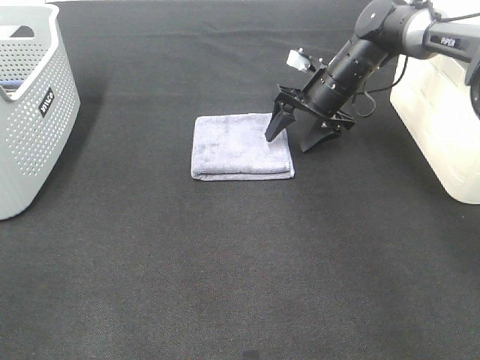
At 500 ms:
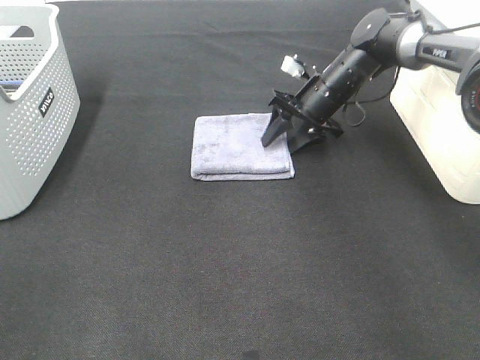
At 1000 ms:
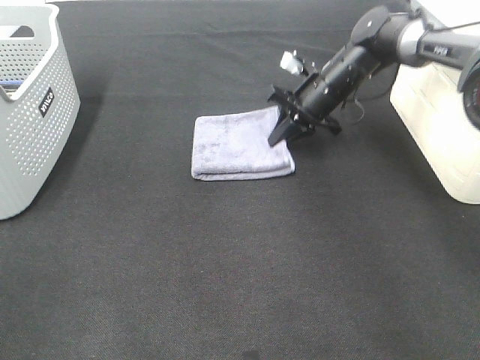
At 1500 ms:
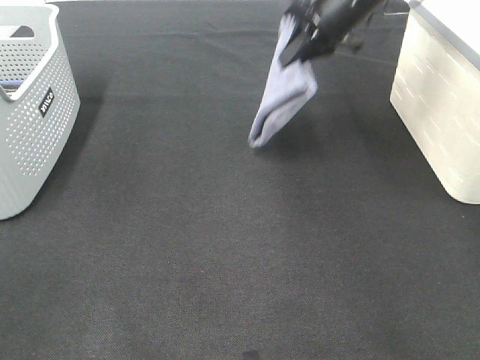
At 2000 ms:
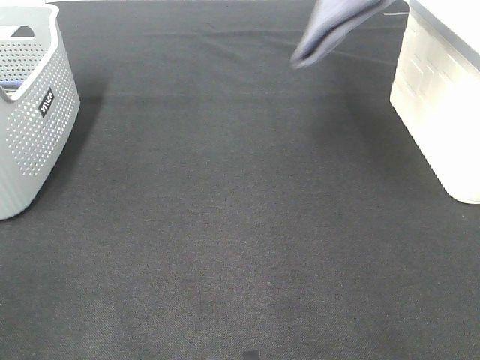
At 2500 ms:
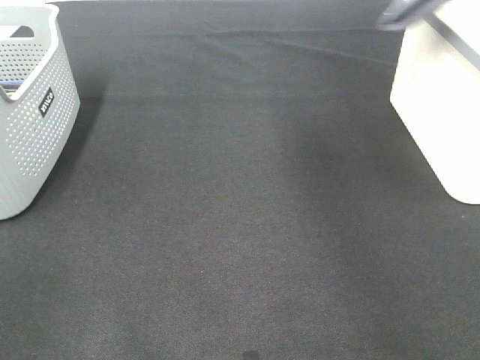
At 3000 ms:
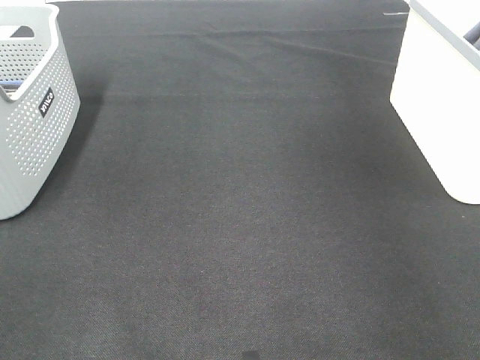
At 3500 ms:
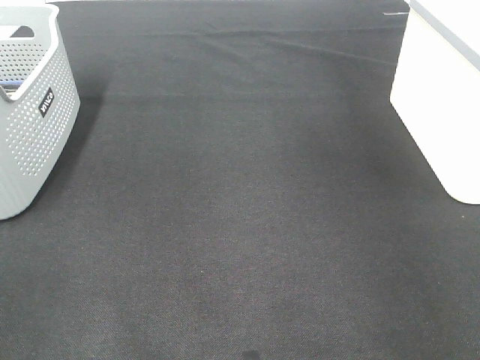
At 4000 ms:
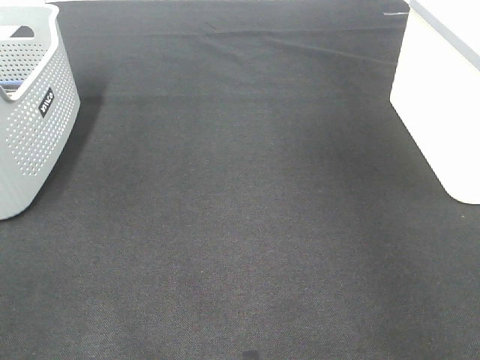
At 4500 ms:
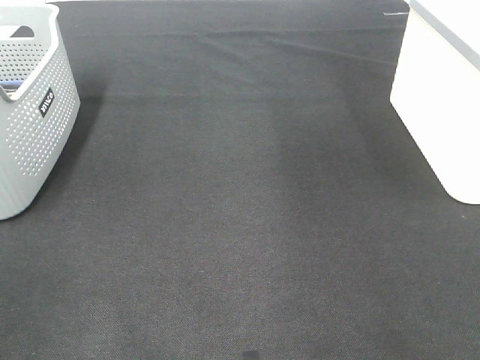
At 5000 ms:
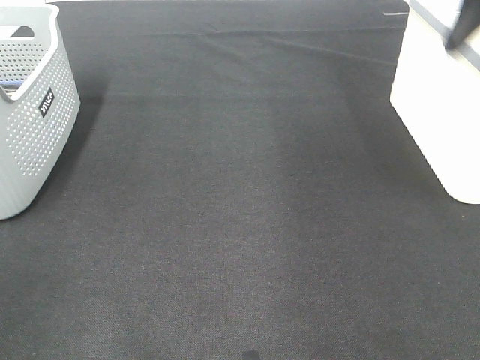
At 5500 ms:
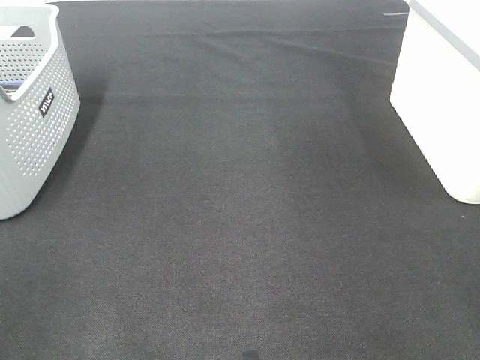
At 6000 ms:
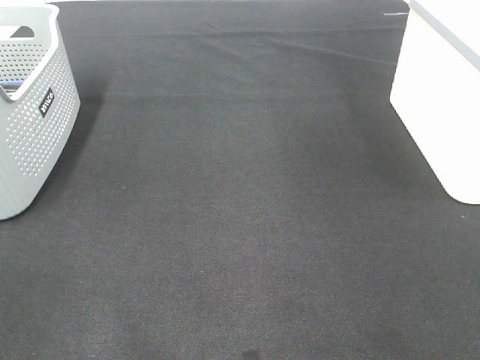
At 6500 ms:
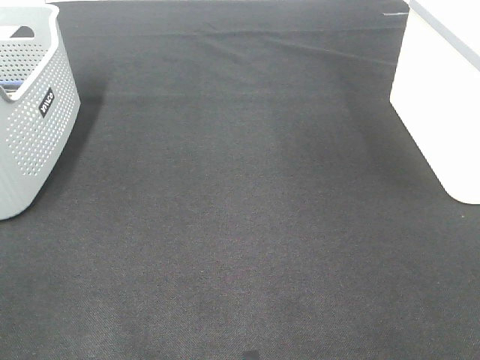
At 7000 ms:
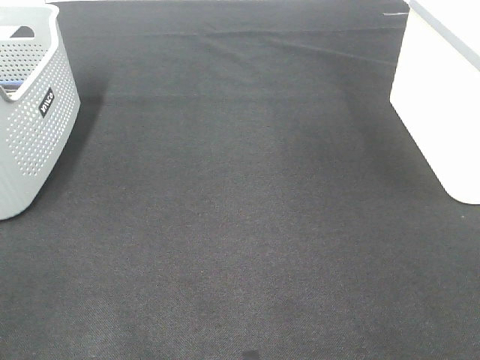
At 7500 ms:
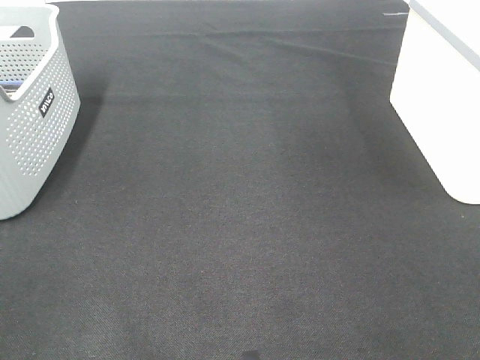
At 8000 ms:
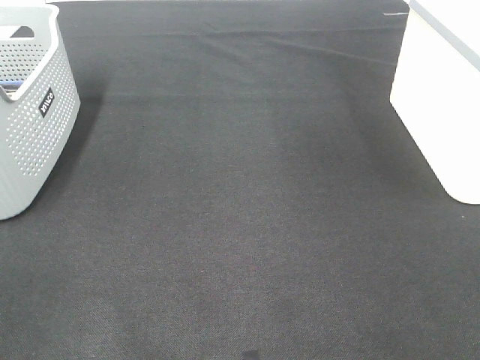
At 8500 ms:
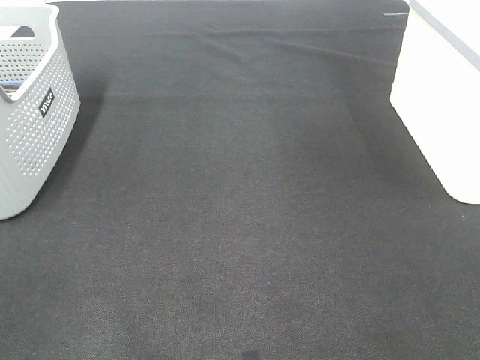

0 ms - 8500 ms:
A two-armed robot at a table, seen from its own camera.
Step, 1000 ms - 3500 ms: Right hand: place the grey towel in right basket.
0 ms - 2000 ms: The right gripper moves upward, roughly 30 cm, and closes its fingers.
2000 ms - 4000 ms: The right gripper moves to the right, roughly 15 cm, and opens up.

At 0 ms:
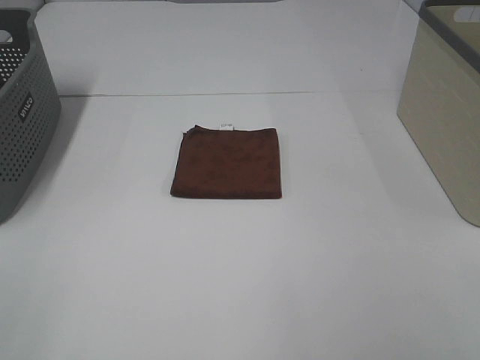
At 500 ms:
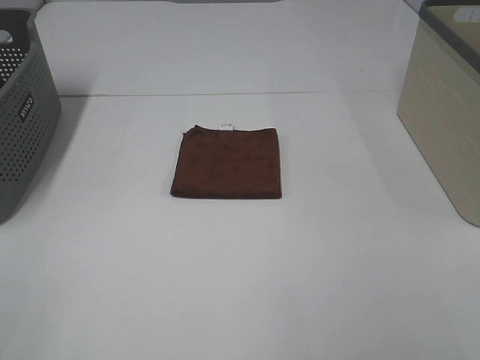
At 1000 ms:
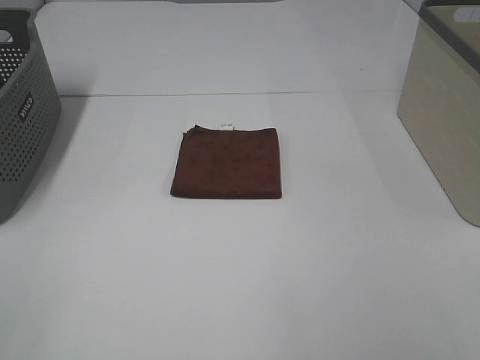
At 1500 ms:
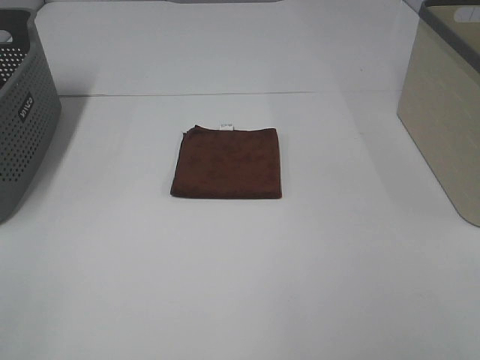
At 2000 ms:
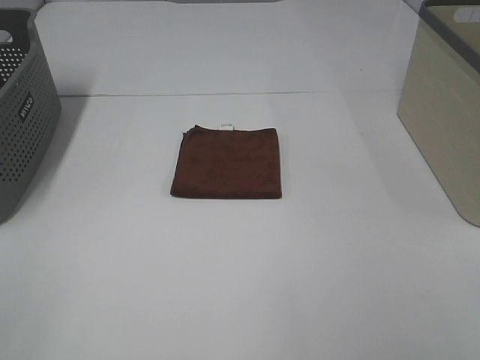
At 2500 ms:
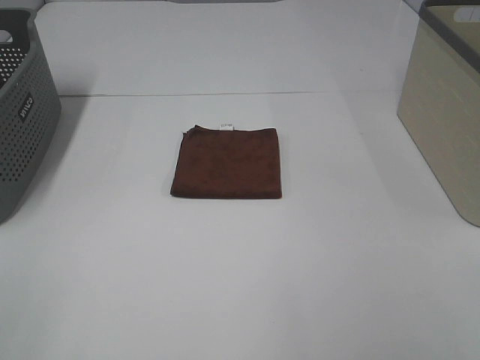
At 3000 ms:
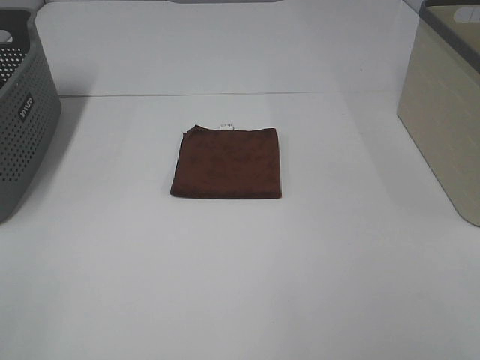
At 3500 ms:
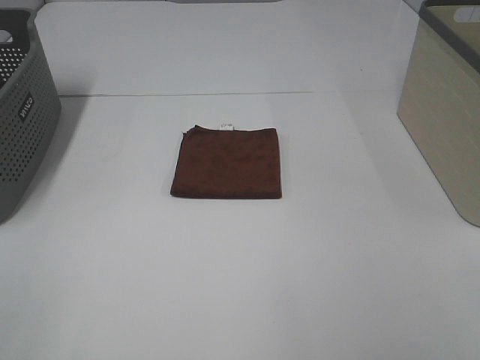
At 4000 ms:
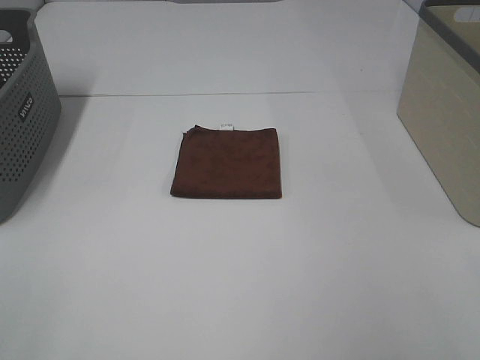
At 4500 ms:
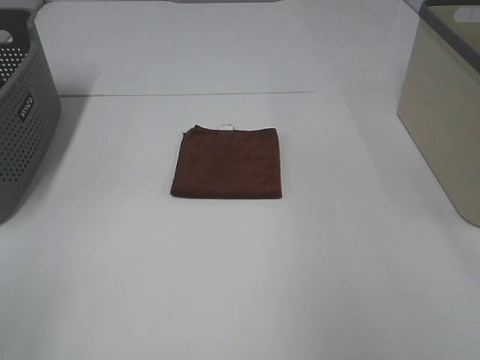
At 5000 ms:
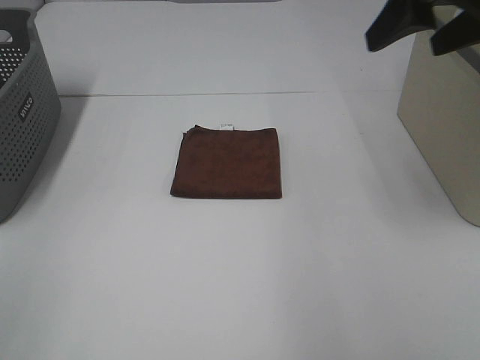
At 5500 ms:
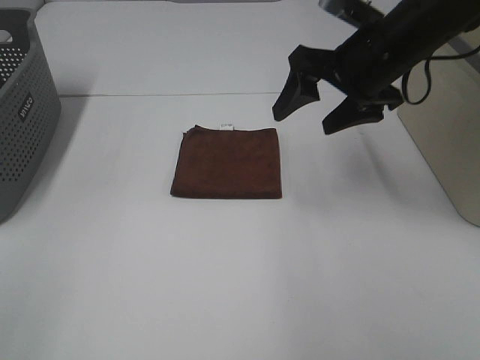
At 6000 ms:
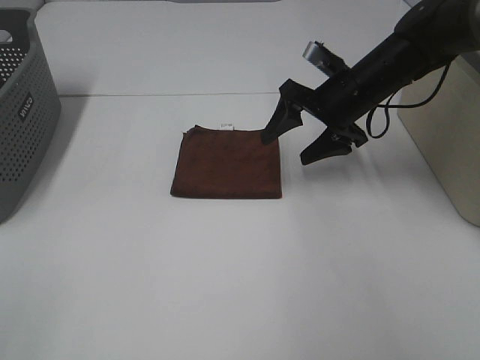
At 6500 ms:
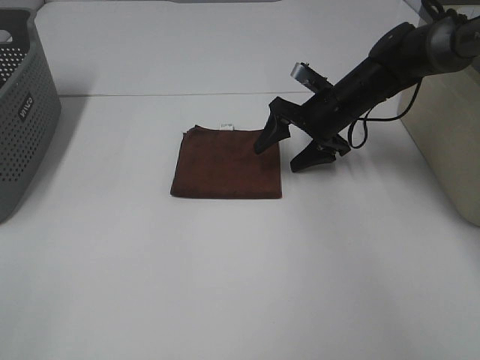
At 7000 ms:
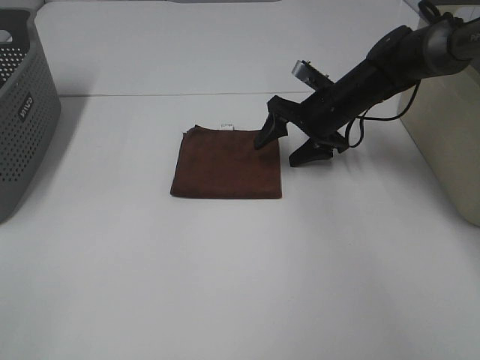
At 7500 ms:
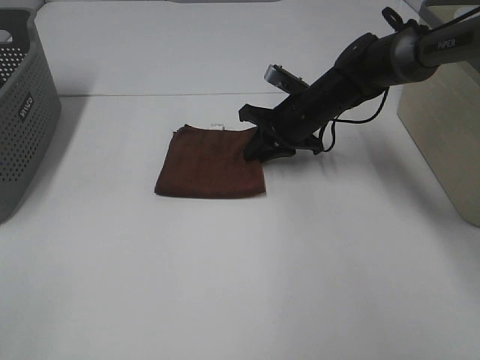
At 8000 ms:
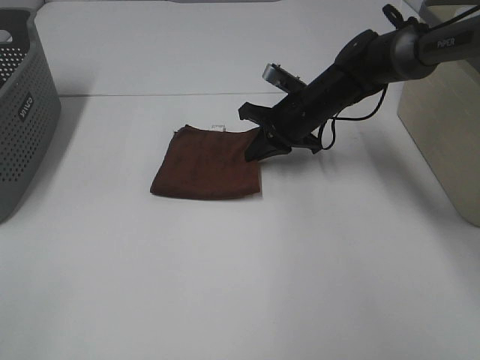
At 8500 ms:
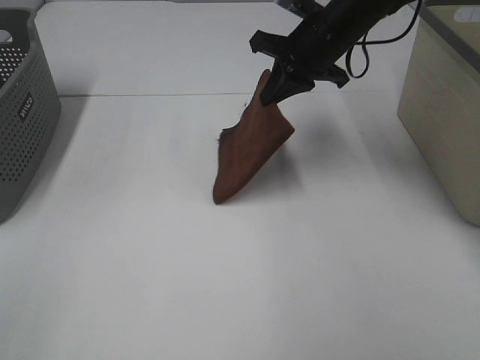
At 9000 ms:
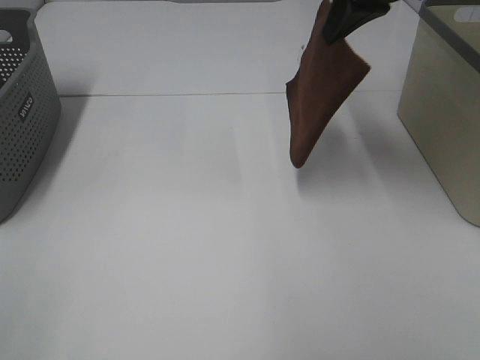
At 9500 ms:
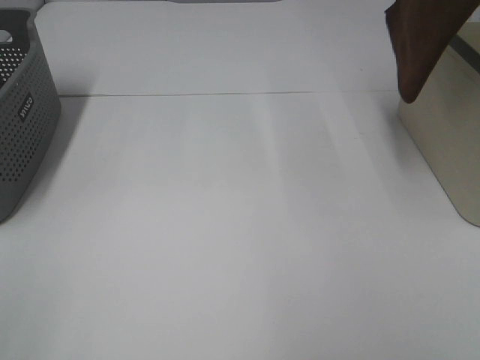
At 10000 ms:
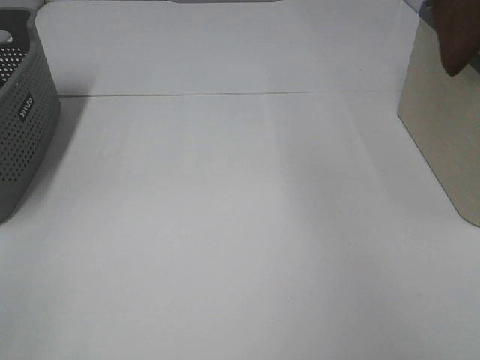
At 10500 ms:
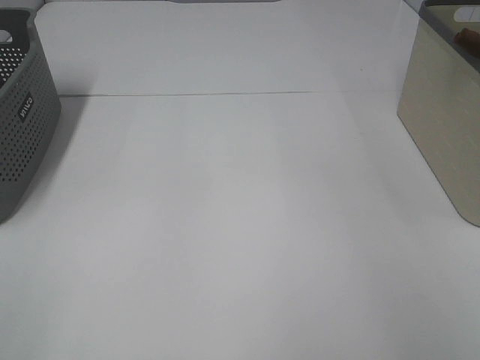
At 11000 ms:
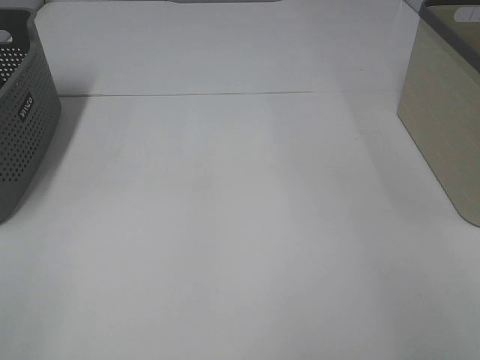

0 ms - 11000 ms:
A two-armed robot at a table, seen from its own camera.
Step, 0 ms - 7500 ms: Right hand: grab the folded brown towel.
Step, 8000 ms - 11000 ms: Right hand: place the brown towel in right basket.
0 ms - 3500 ms: The two grippers keep their place.
3500 ms - 5500 ms: The right gripper heads forward, covering roughly 35 cm.
5500 ms - 7500 ms: The right gripper goes roughly 15 cm downward and forward, and closes up.
7500 ms - 9000 ms: The right gripper goes about 25 cm upward.
9000 ms - 11000 ms: The right gripper is displaced to the right by roughly 30 cm, and opens its fingers.

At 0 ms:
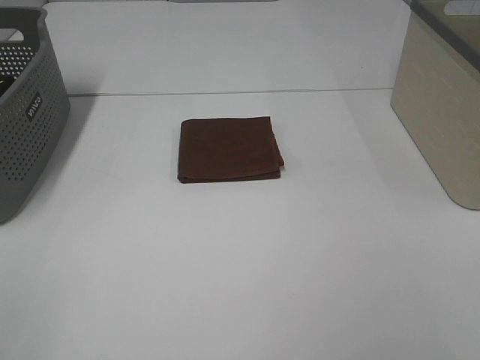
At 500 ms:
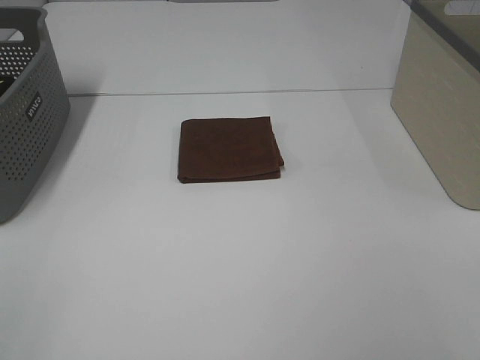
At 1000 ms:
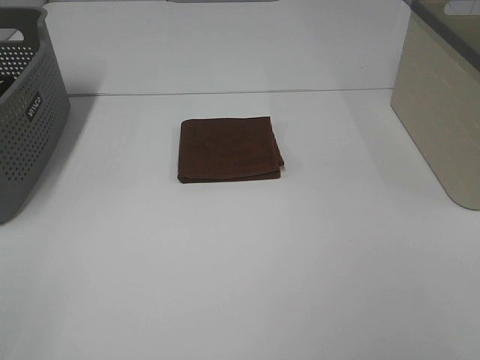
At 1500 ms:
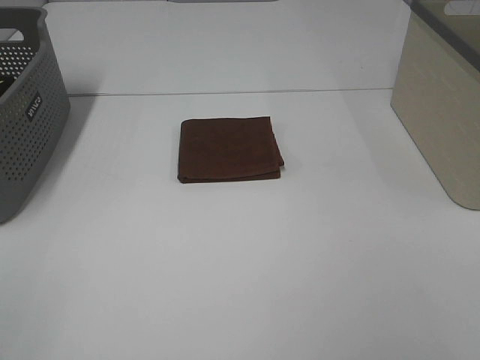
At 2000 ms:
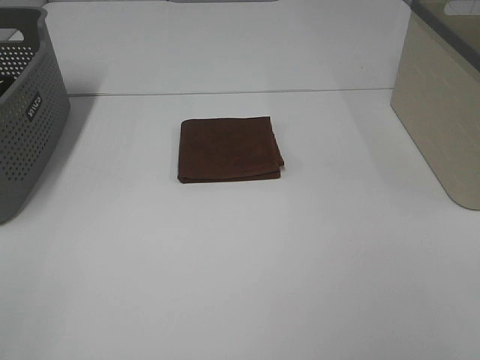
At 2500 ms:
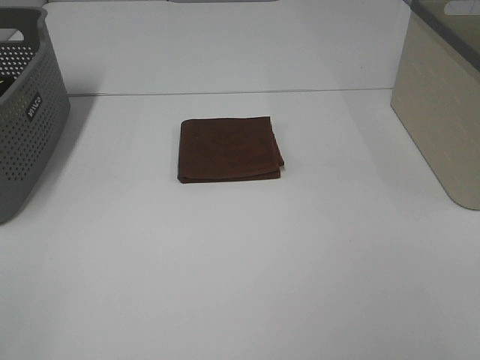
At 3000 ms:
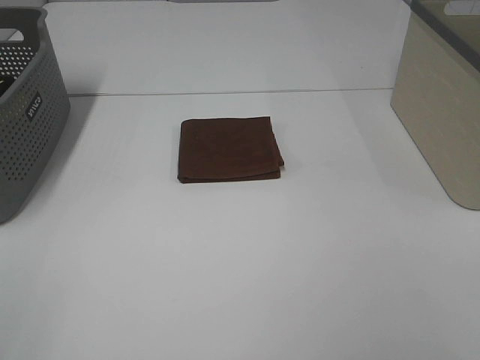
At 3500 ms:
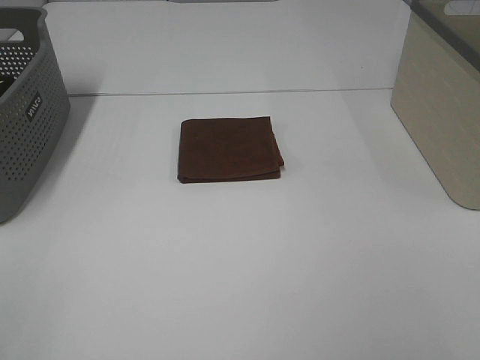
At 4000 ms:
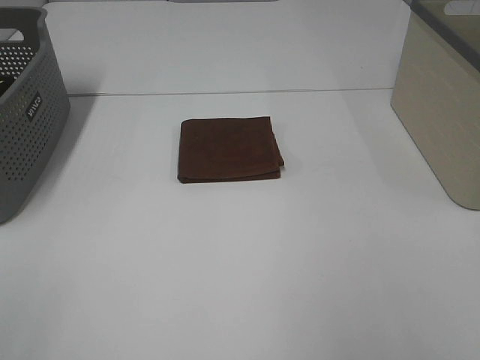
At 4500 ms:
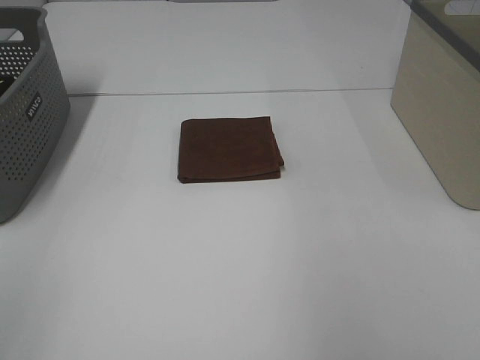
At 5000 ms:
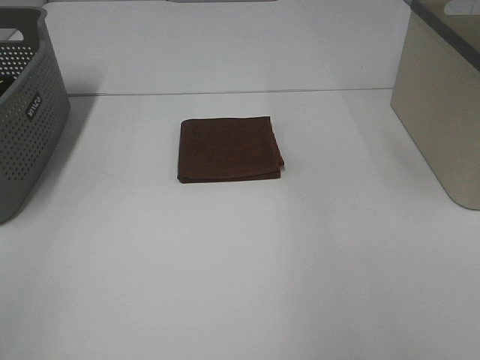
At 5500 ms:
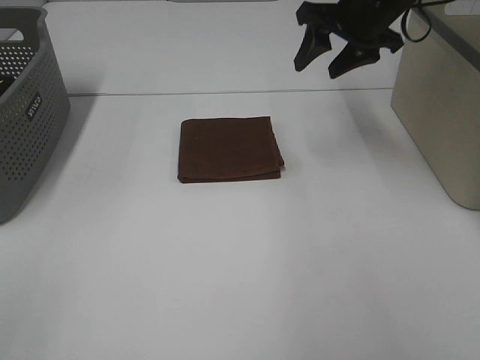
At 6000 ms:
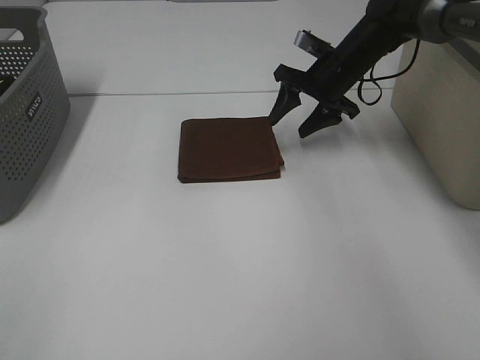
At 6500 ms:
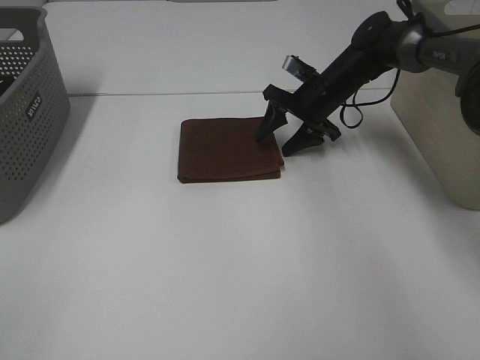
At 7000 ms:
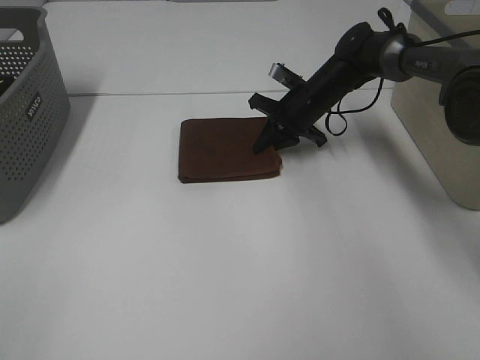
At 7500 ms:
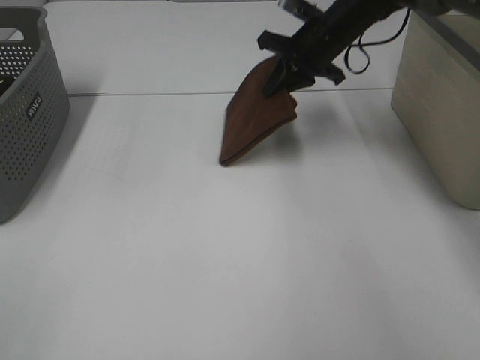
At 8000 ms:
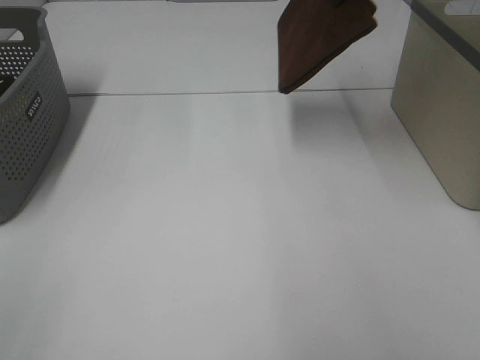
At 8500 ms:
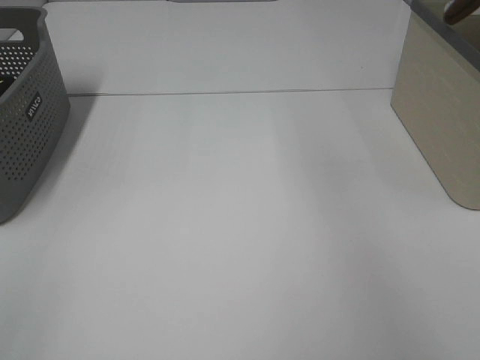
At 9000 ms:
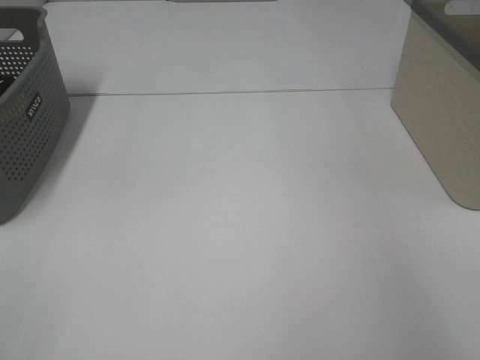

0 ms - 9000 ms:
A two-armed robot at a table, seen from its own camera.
Step, 0 ms - 7000 ms: Right hand: grab the folded brown towel.
0 ms - 2000 ms: Both grippers stay put.
4500 ms - 7000 ms: The right gripper goes about 40 cm downward, forward and to the left, and closes its fingers.
7000 ms - 9000 ms: The right gripper is displaced to the right and upward by some 40 cm.
